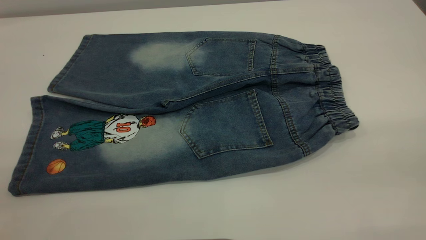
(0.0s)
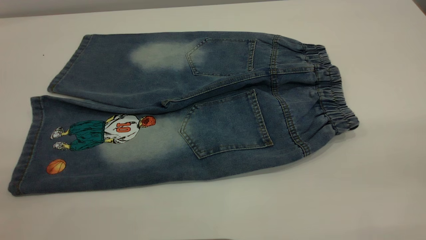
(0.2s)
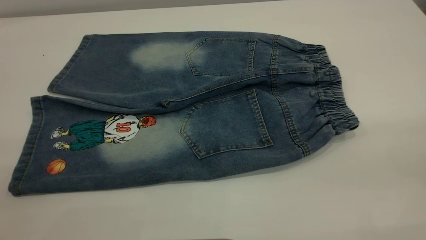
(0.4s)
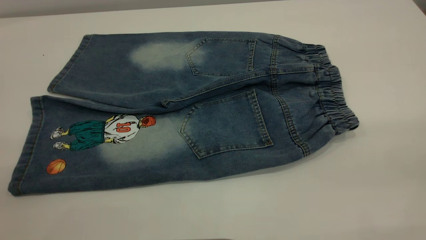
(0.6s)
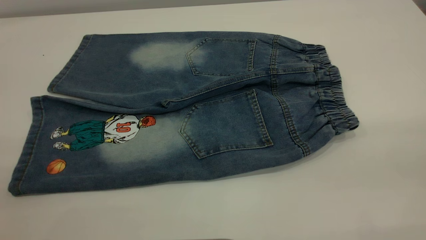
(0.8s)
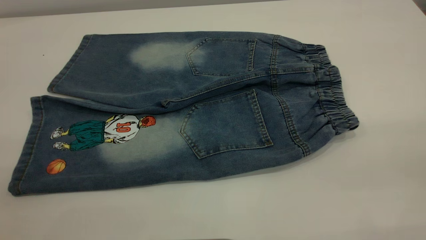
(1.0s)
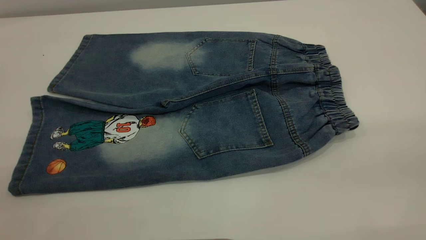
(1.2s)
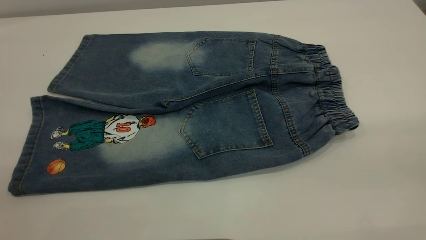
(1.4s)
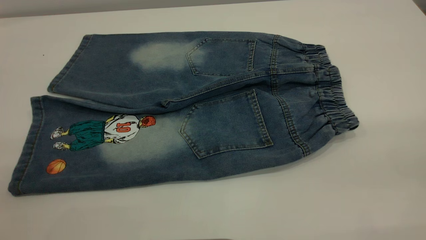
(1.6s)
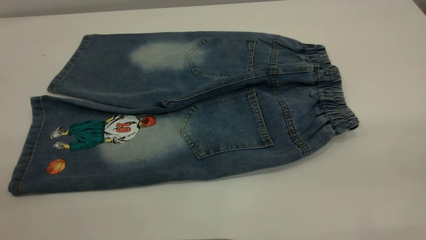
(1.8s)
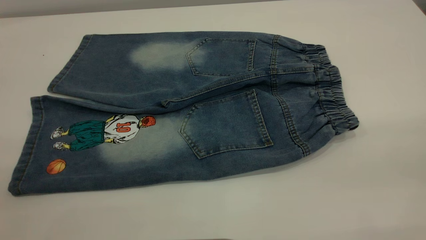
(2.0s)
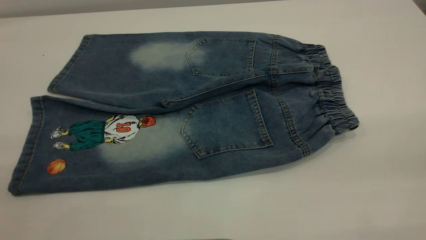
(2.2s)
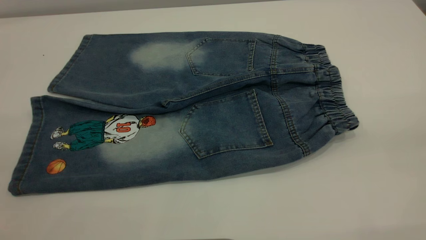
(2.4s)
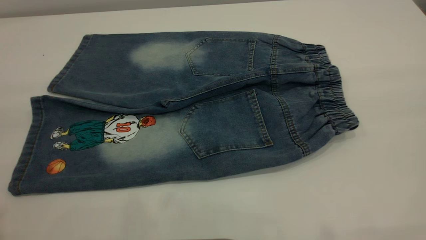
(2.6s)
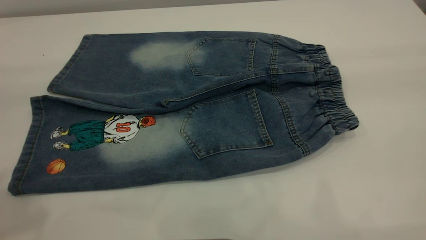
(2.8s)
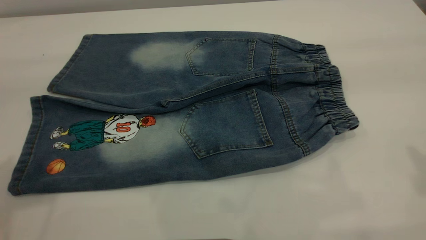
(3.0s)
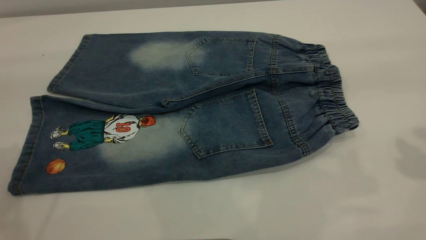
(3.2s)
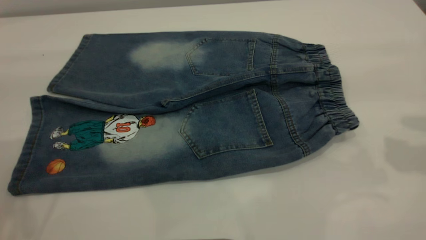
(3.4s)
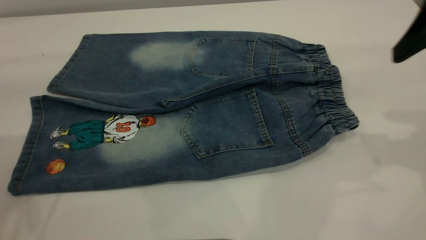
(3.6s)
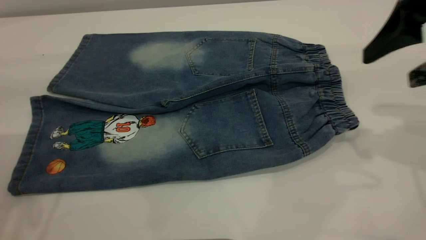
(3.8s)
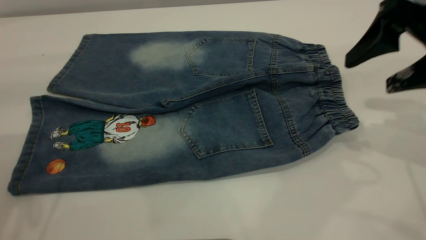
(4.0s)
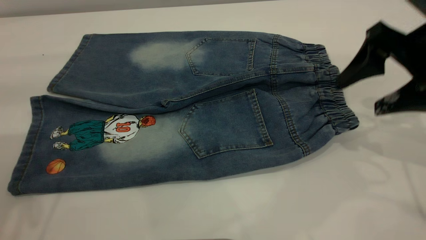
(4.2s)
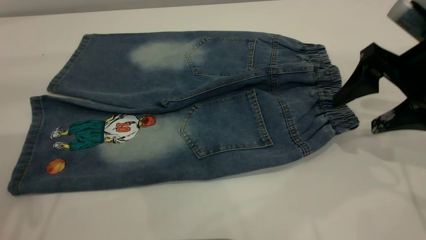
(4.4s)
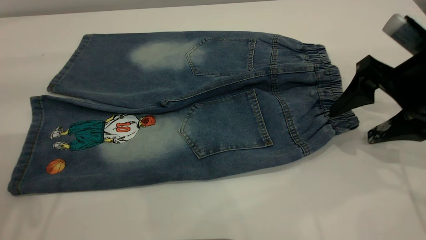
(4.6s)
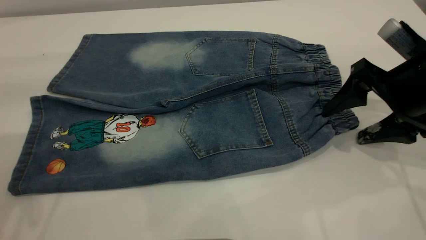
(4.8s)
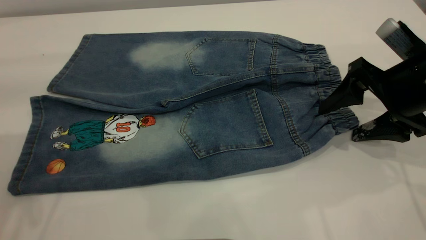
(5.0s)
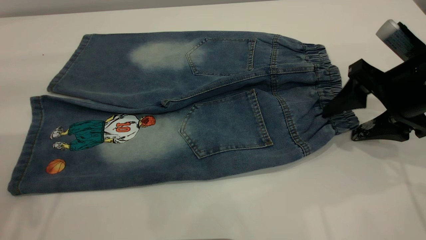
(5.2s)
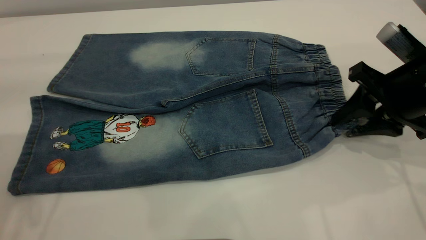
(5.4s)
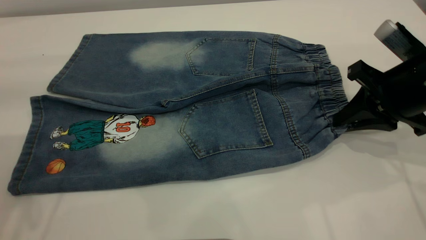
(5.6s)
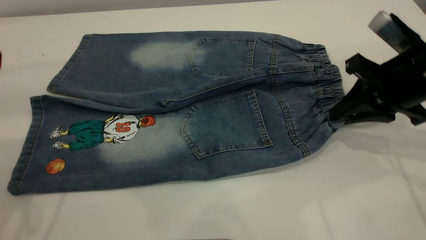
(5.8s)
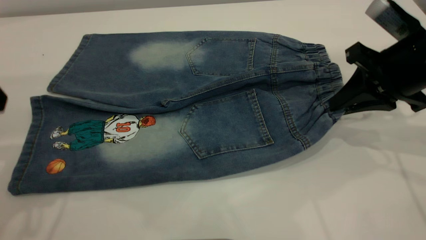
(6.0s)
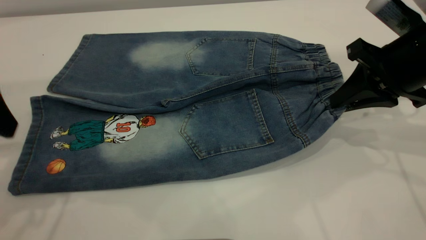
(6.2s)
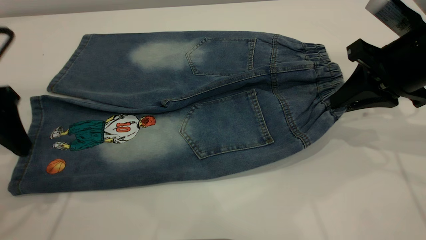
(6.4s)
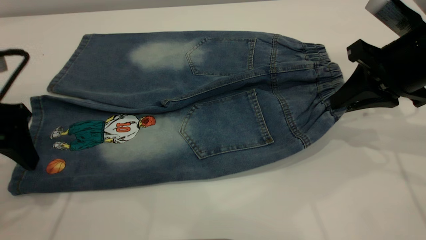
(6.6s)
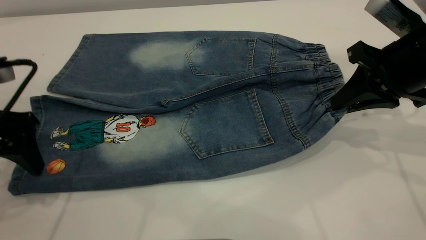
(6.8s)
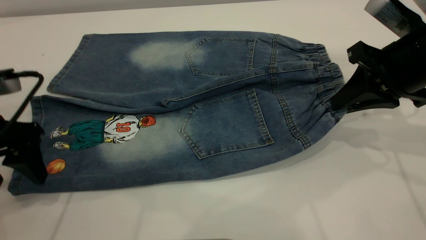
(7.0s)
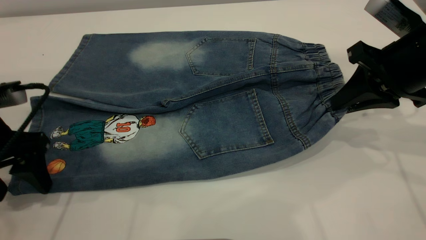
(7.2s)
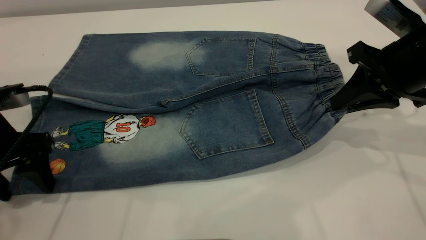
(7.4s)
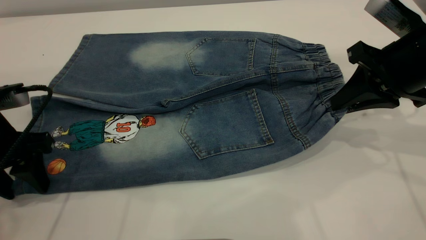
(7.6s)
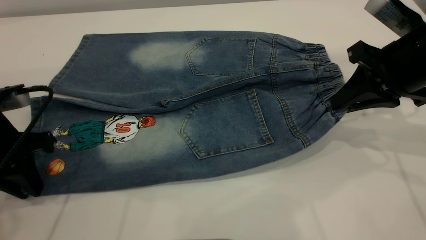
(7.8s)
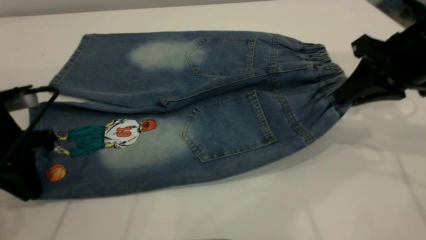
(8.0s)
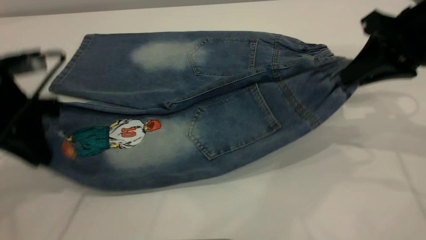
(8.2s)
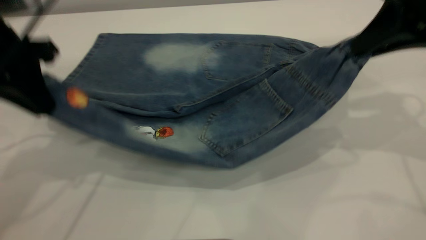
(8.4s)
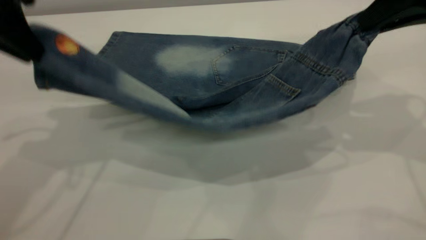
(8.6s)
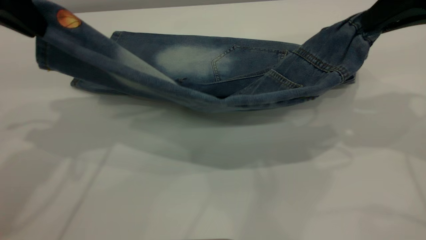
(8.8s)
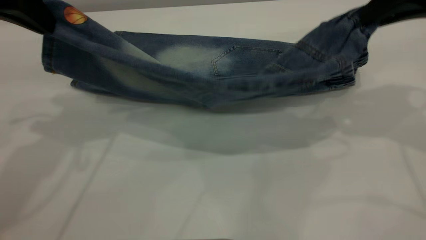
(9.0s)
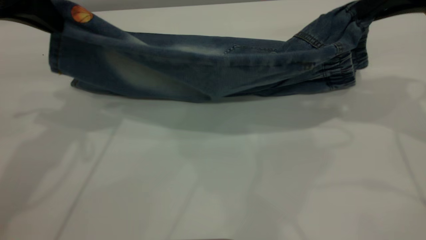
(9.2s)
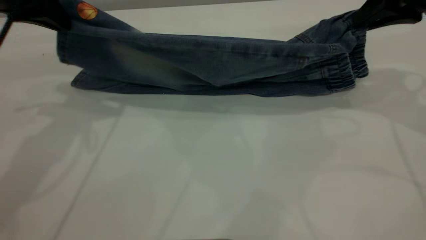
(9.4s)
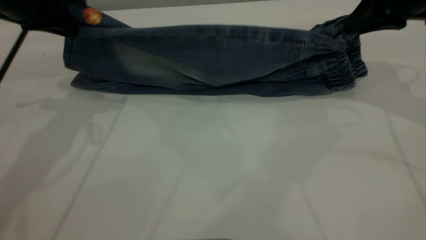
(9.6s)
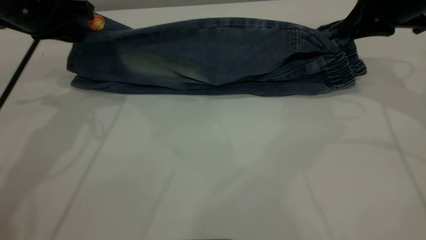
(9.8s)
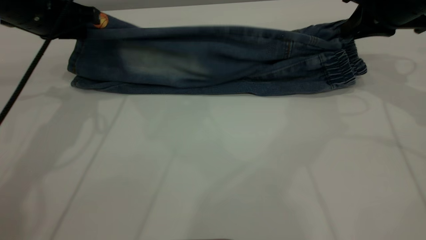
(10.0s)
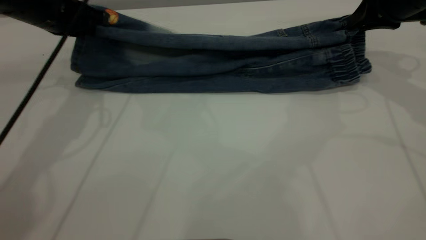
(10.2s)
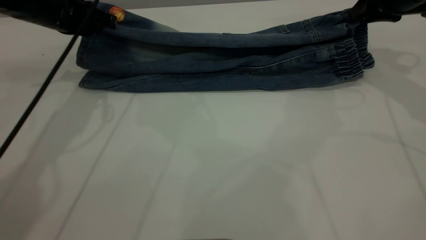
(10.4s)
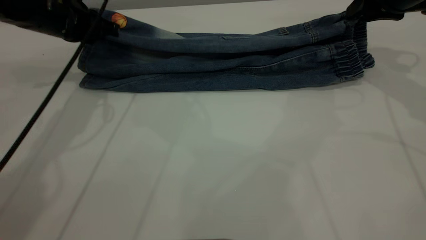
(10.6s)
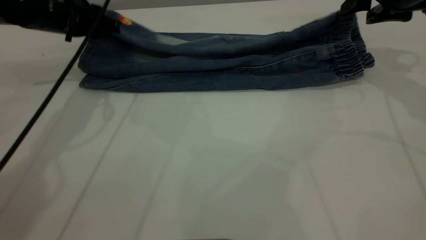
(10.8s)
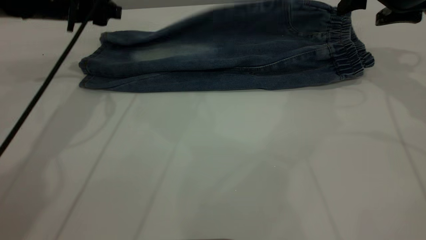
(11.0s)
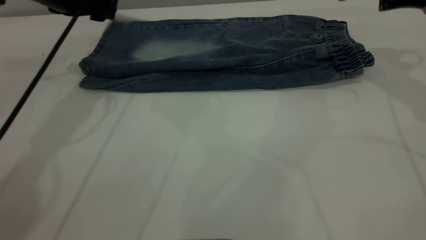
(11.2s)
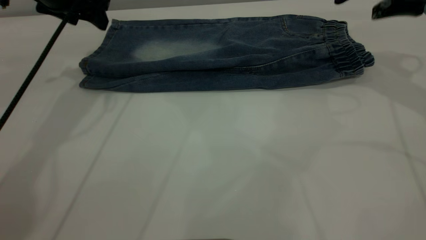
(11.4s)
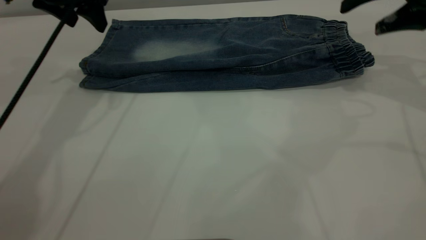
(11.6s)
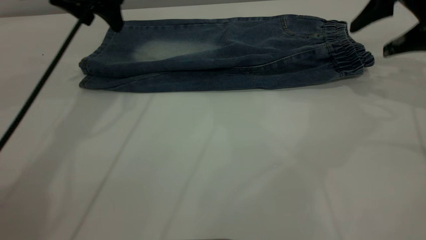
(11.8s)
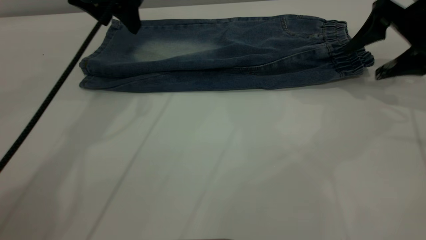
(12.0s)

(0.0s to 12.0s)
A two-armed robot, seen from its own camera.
Step, 0.0s - 11.2s: Fold the bottom of the pants upward.
0.0s - 1.6s: Neither gripper changes place.
3.0s - 4.4s: The right gripper moves downward and forward, roughly 25 cm, while the left gripper travels downward by about 5 cm.
4.4s - 6.0s: The right gripper closes its fingers.
6.0s - 7.6s: The left gripper goes about 15 cm downward, and closes.
7.6s - 9.0s: The left gripper heads upward and forward, covering roughly 20 cm, and closes up. Meanwhile the right gripper travels upward by approximately 10 cm.
9.0s - 10.4s: The left gripper is displaced downward and forward by roughly 15 cm, while the right gripper travels forward and downward by roughly 10 cm.
10.4s - 12.0s: The right gripper changes place by about 5 cm, and opens, while the left gripper travels to the right and upward by about 10 cm, and opens up.

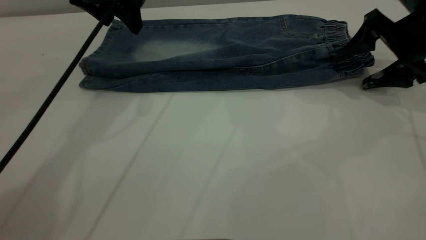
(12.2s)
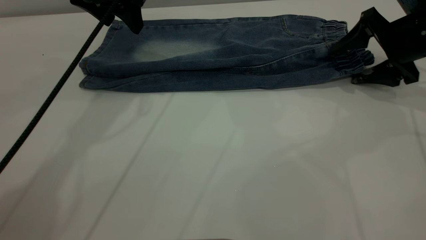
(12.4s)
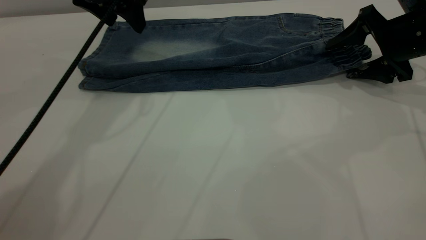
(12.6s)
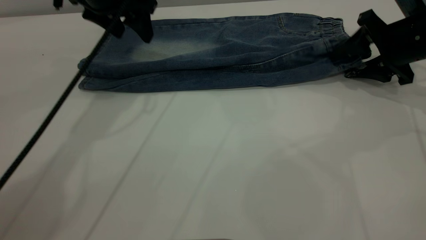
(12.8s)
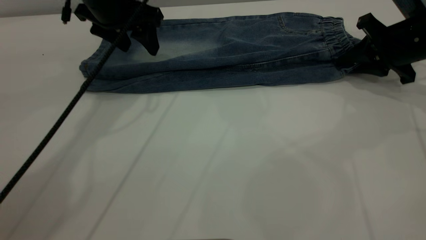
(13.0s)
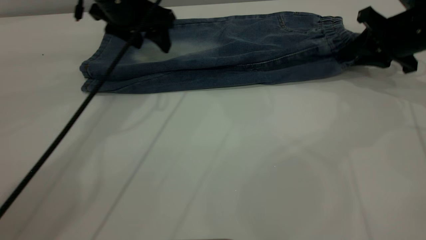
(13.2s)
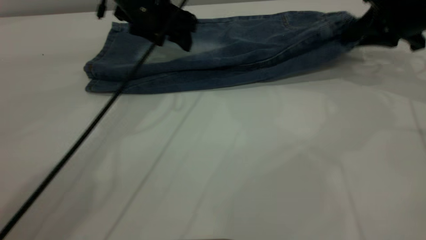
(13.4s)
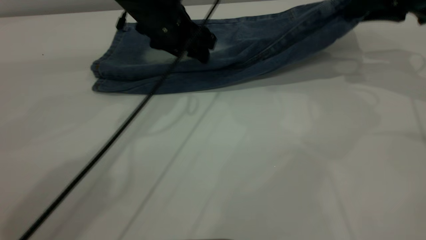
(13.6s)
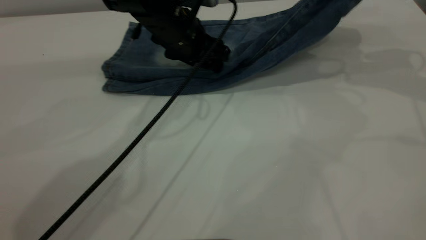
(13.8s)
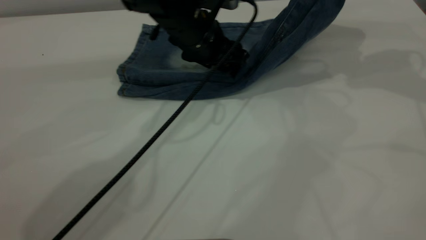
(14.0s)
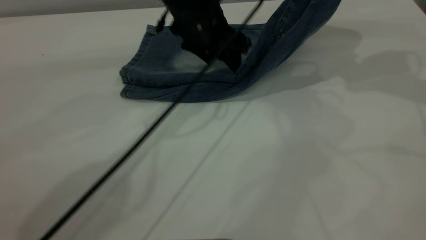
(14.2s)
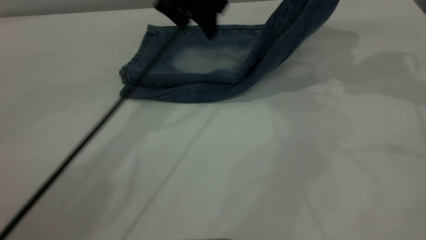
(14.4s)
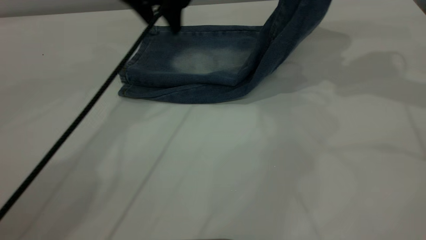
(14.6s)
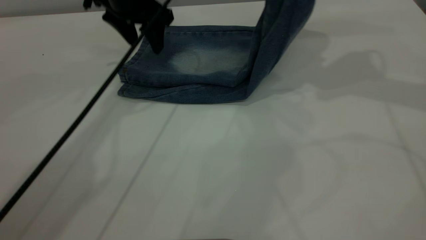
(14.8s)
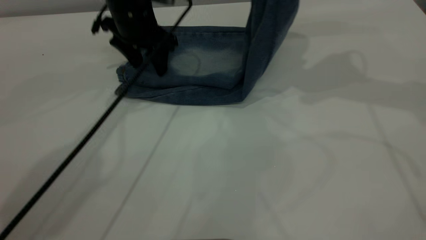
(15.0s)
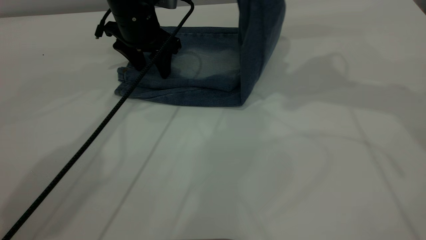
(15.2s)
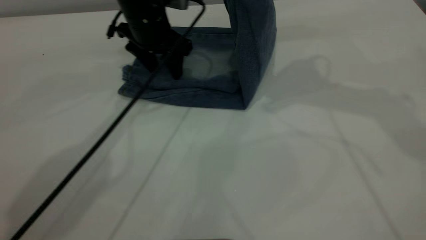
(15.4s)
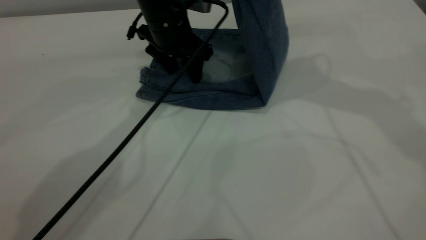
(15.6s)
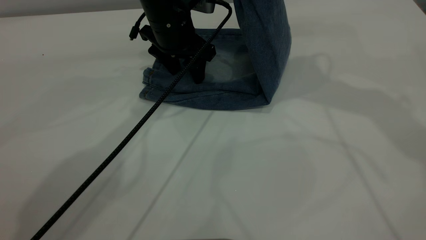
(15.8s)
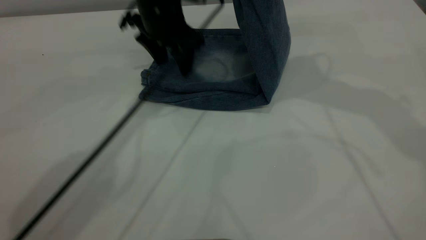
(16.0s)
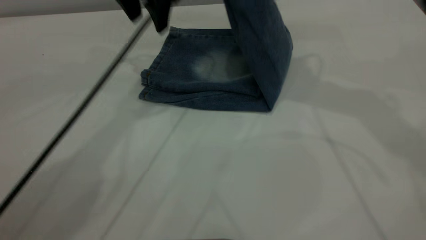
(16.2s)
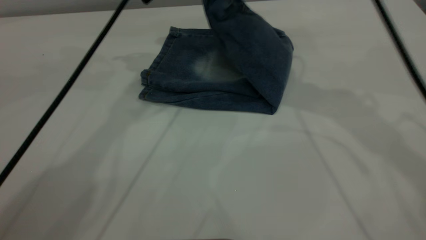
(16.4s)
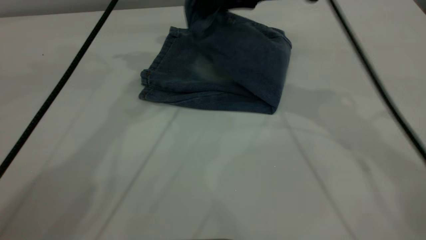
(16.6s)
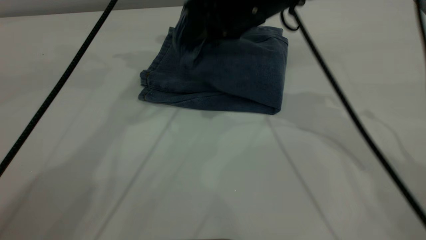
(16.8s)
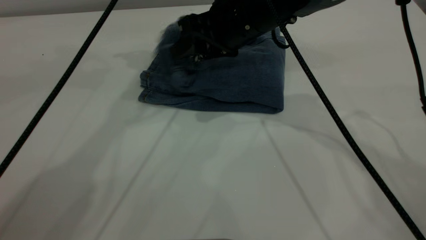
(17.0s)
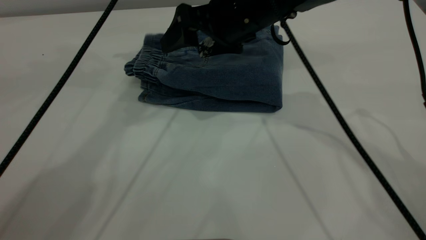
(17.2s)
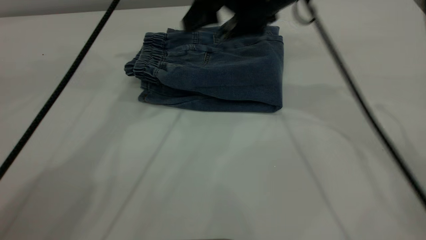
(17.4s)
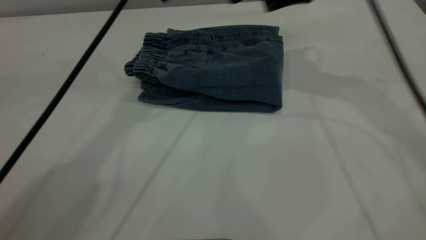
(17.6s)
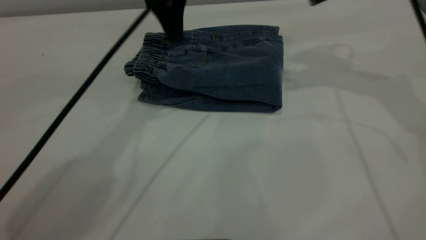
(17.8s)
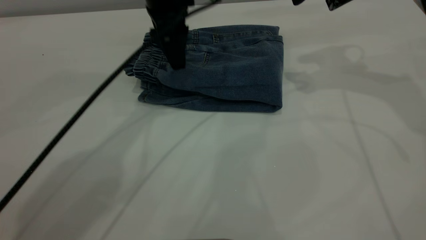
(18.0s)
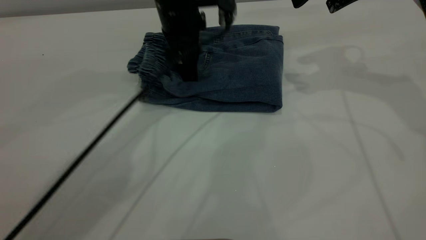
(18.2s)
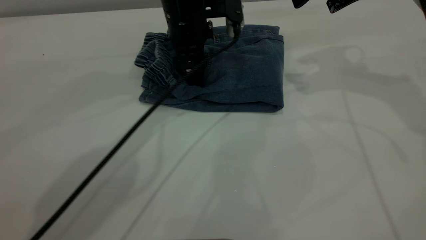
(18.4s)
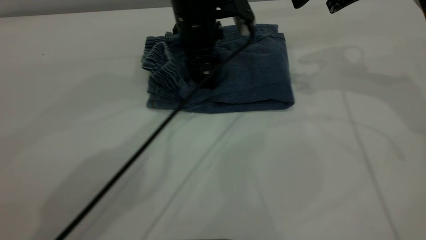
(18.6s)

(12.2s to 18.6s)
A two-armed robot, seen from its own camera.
Step, 12.2s - 17.4s: Fold your pants from right to left.
12.2s - 13.8s: The left gripper shifts approximately 15 cm downward and to the right. The right gripper moves upward, about 10 cm, and closes.
13.8s - 15.4s: The right gripper travels to the left and upward by roughly 15 cm.
15.4s - 17.0s: The left gripper shifts approximately 15 cm upward. The right gripper travels downward and to the left by about 15 cm, and opens.
17.0s - 18.6s: The right gripper moves to the right and upward, roughly 20 cm, while the left gripper goes approximately 20 cm downward and to the right.
